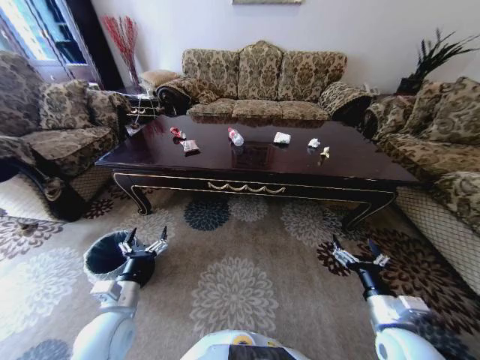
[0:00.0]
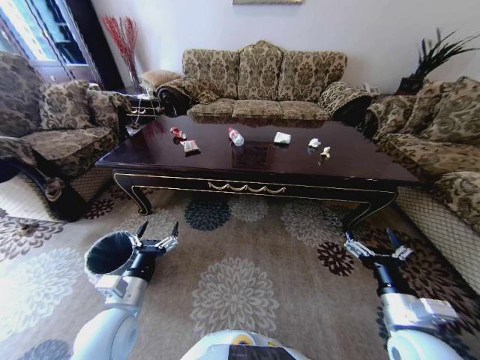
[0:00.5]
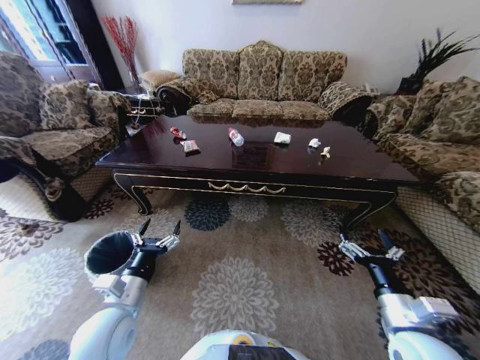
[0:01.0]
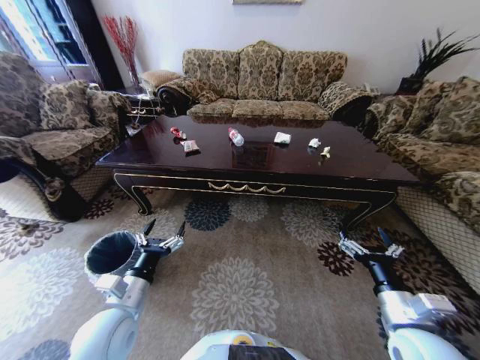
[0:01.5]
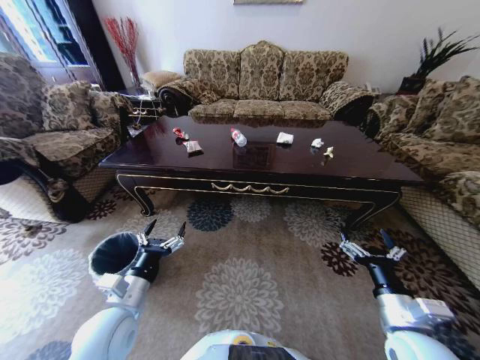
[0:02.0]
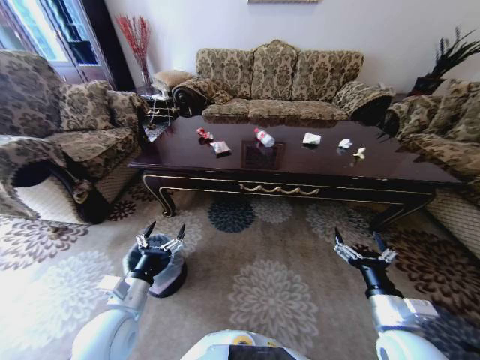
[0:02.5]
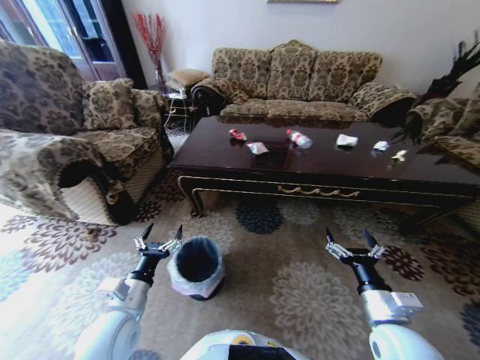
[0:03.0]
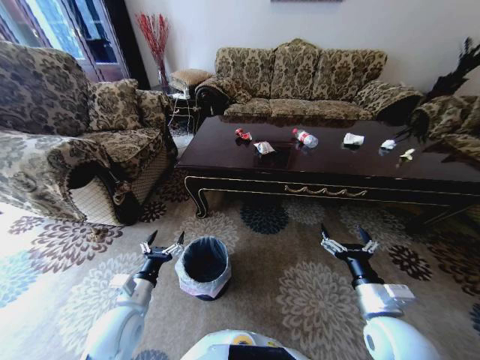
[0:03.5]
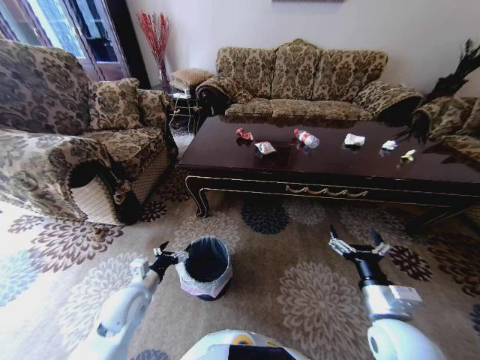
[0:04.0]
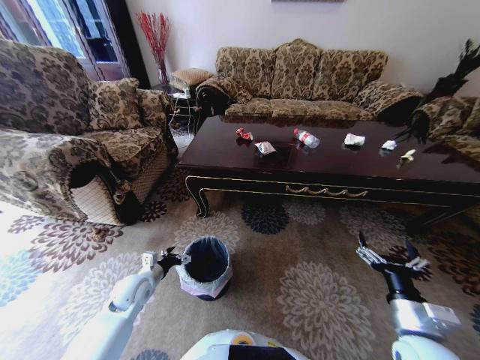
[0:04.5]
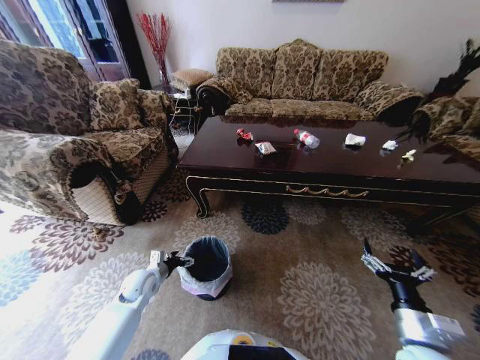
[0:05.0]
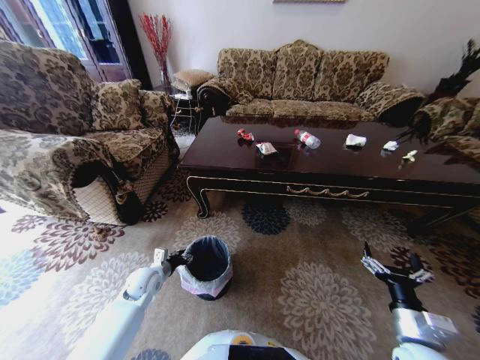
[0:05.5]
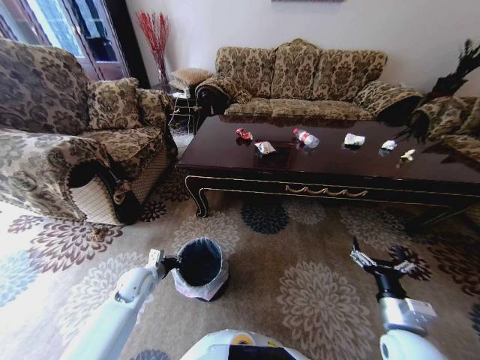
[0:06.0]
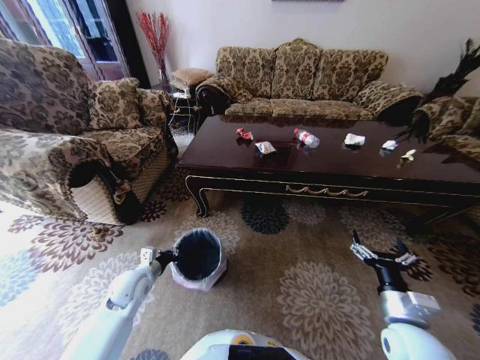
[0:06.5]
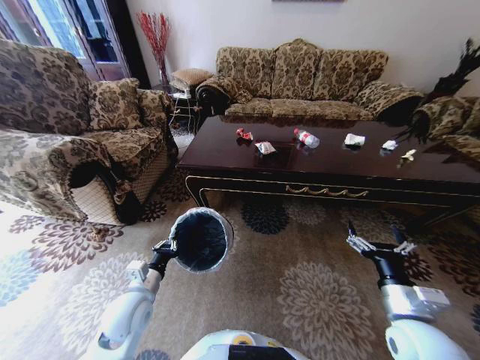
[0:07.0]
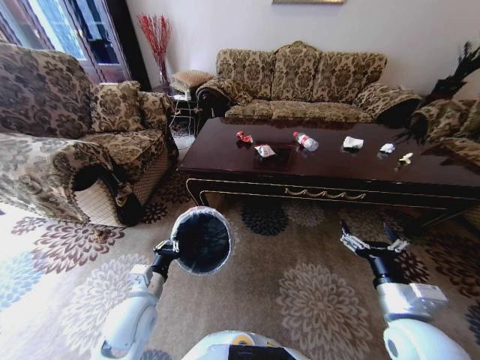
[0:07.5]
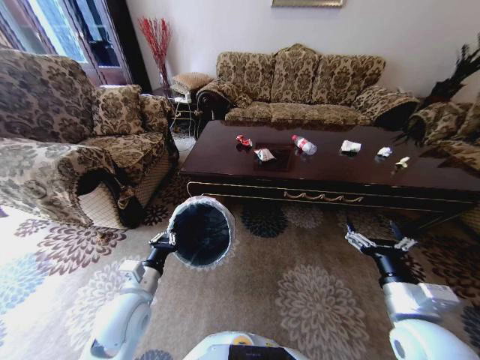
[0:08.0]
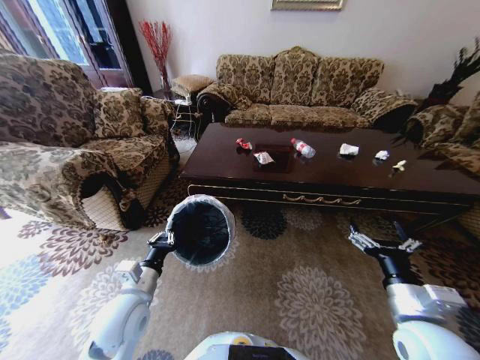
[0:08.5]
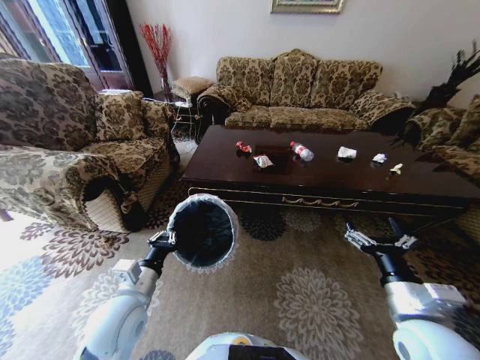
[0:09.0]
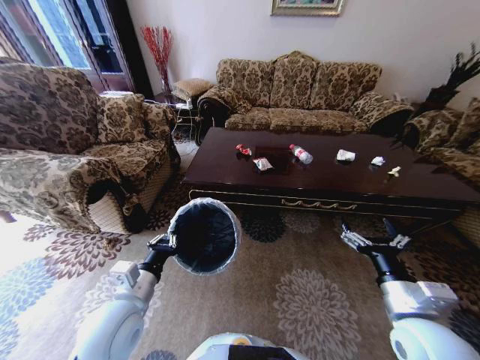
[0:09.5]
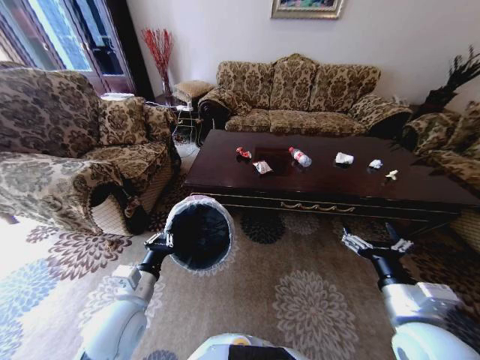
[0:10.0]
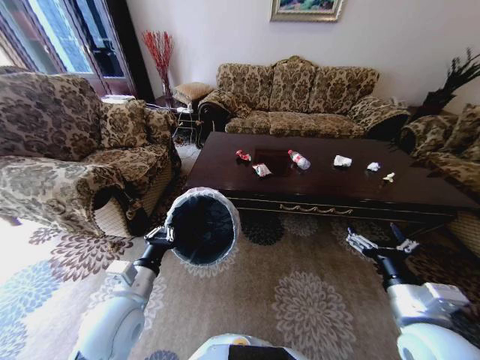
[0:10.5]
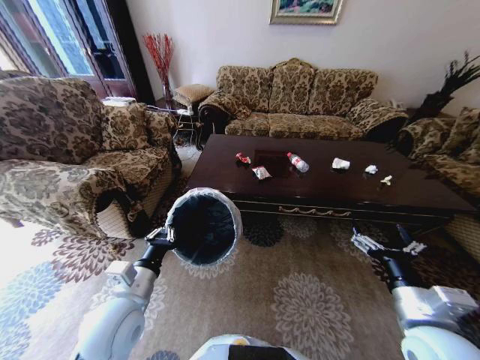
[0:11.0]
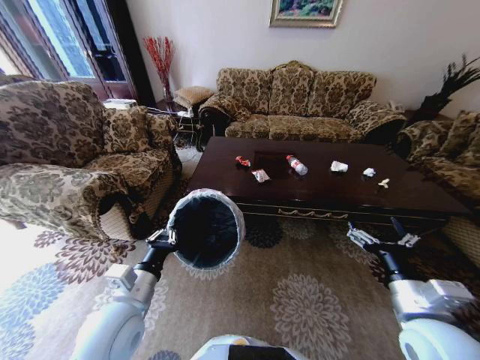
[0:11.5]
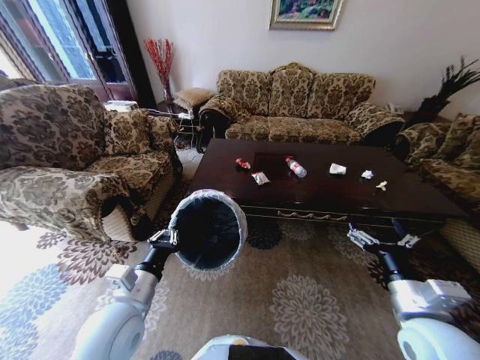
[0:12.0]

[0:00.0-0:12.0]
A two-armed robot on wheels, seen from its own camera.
Task of the whole recording: Move to the front of the table and place the trash on the table into the trash bin.
0:02.0 to 0:04.0: The left gripper moves downward and forward, some 10 cm.
0:04.0 to 0:06.0: The right gripper changes place by approximately 5 cm. Meanwhile the left gripper goes about 5 cm forward, and closes its fingers.
0:06.0 to 0:08.0: The left gripper goes approximately 15 cm upward, backward and to the right; the right gripper goes about 10 cm upward.

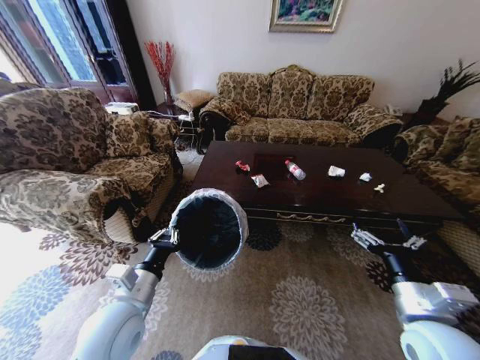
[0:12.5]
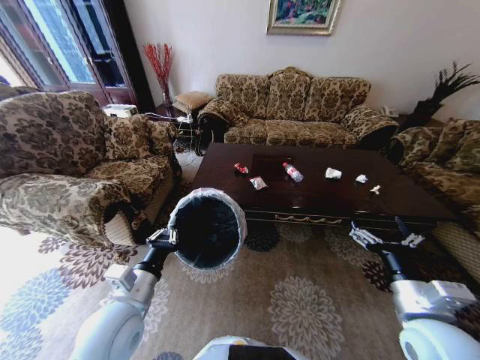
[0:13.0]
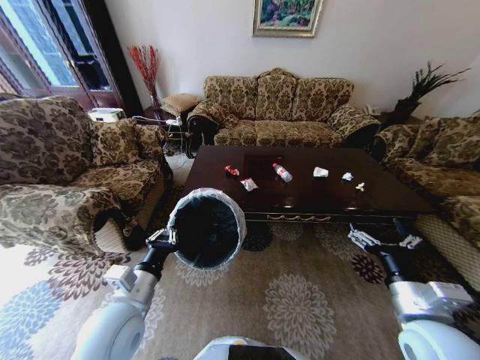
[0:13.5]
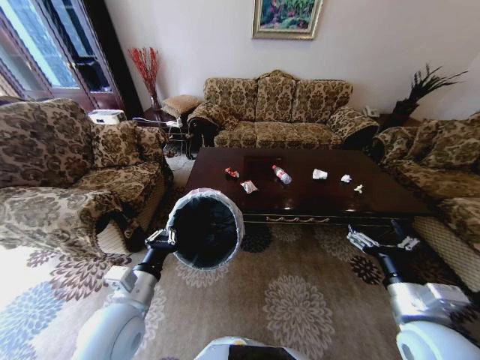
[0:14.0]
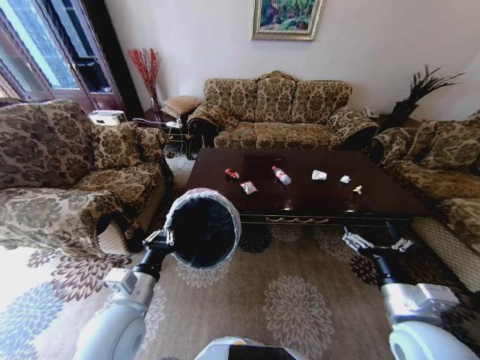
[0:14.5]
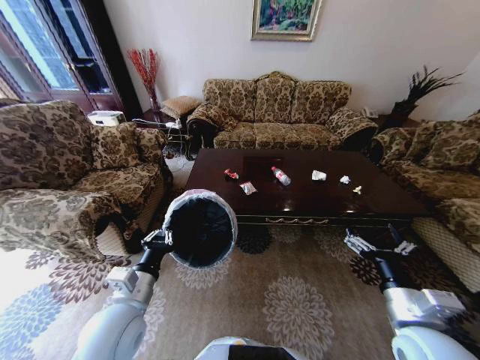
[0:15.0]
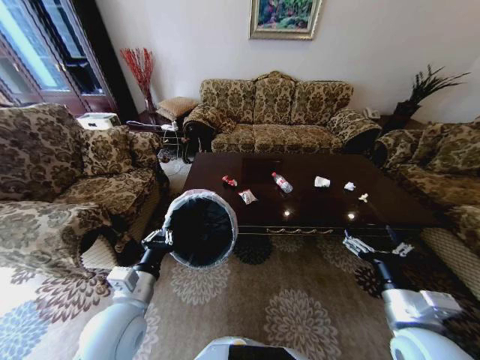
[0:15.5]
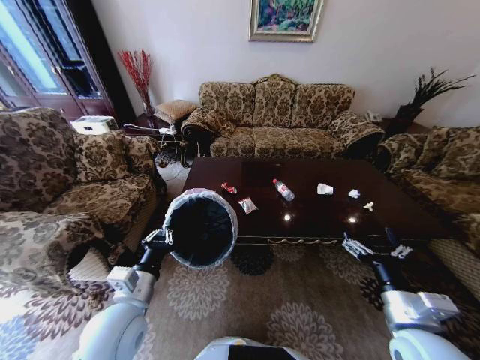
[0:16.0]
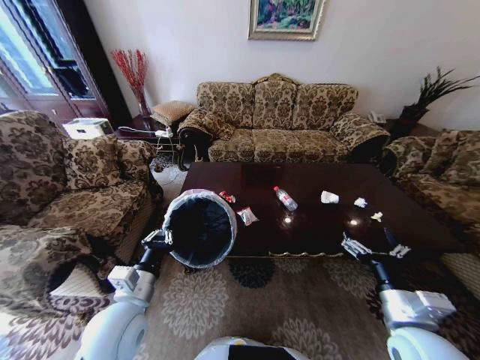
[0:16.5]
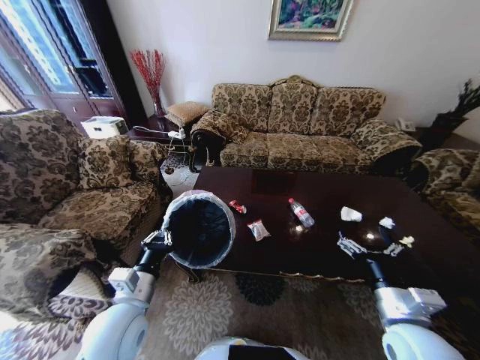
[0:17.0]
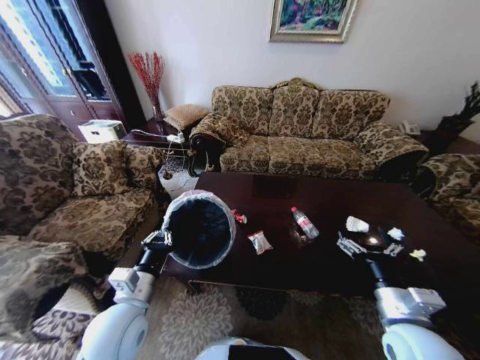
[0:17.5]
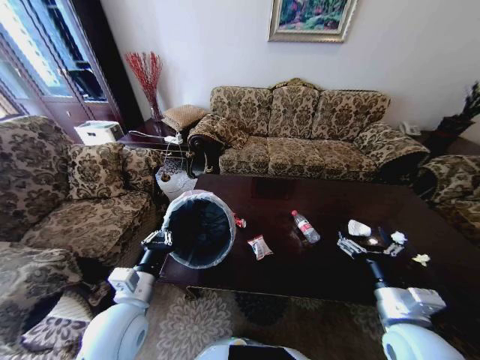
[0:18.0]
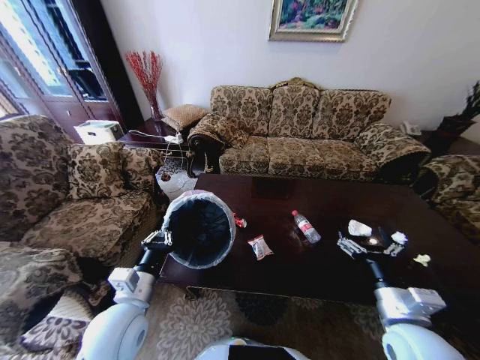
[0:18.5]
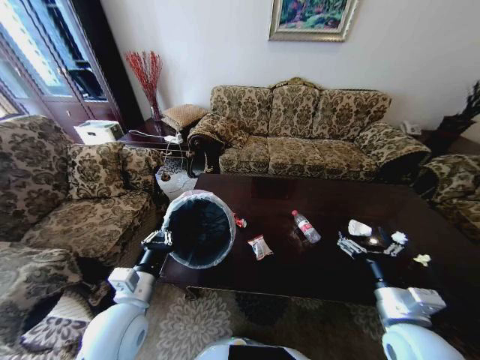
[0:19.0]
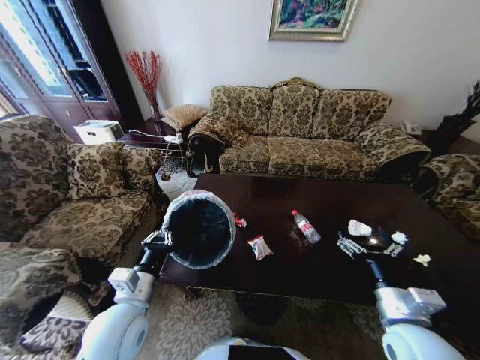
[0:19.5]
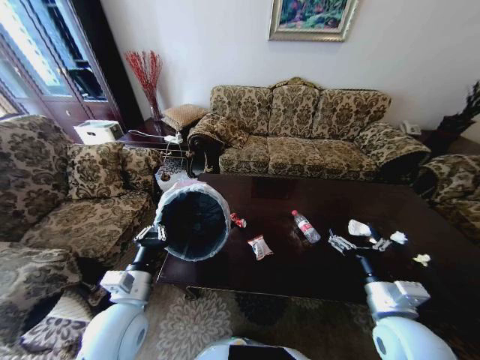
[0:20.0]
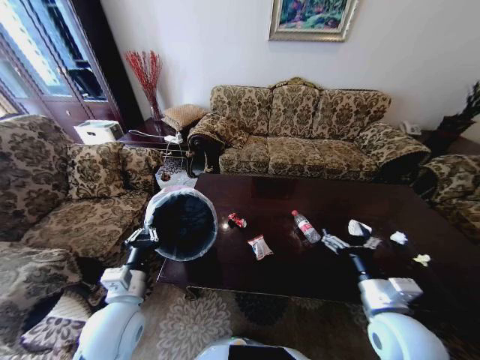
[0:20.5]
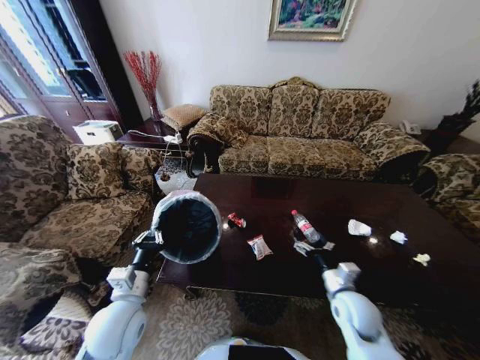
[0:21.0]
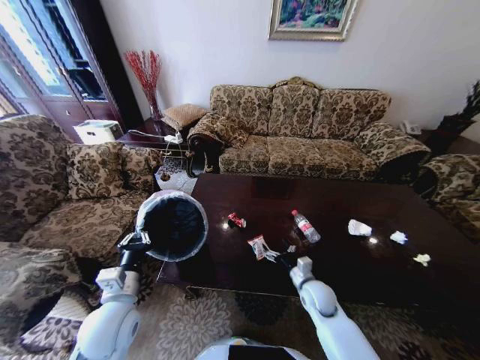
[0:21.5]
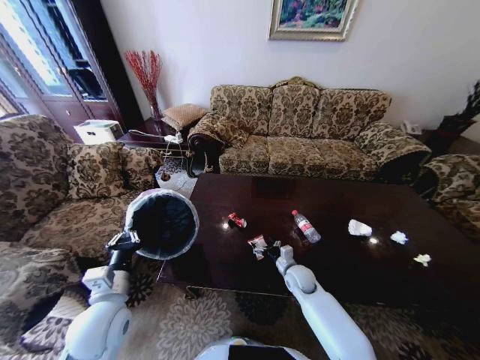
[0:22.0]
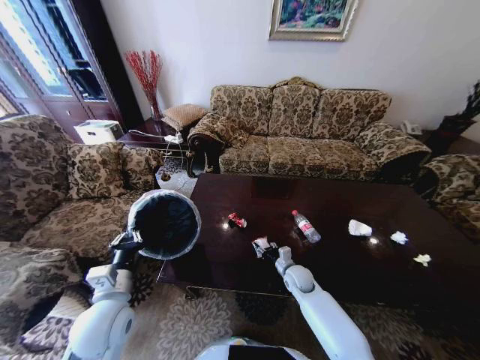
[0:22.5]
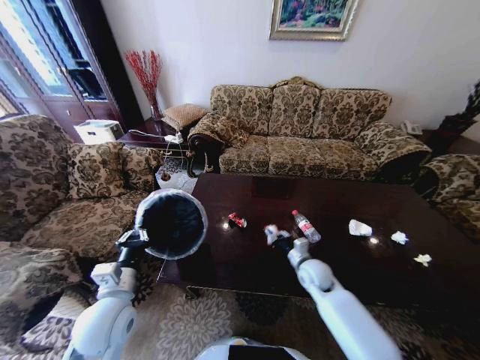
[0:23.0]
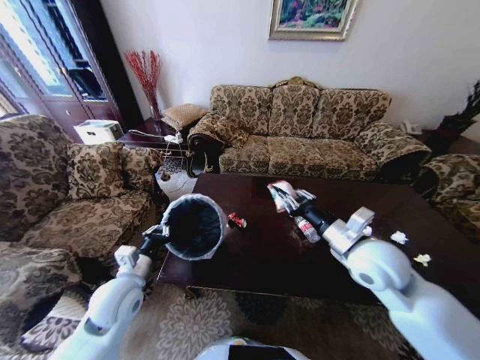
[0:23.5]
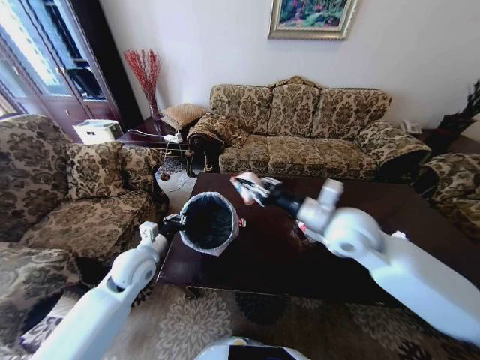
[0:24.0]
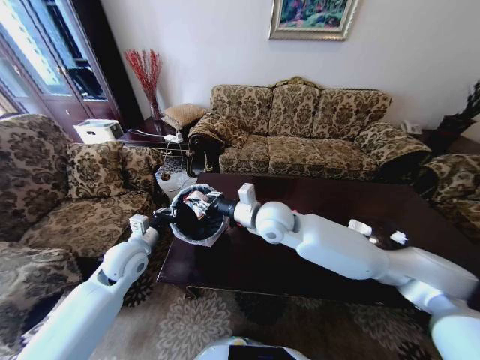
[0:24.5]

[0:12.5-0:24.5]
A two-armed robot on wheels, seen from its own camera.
Task of the whole recording: Move to the front of the table and place the trash on the table into the trash bin.
0:18.5 to 0:20.5: There are only small adjustments of the grippers.
0:20.5 to 0:22.5: The right gripper travels downward, forward and to the left by roughly 30 cm, and closes up.
0:22.5 to 0:24.5: The left gripper moves forward, approximately 15 cm, while the right gripper goes about 35 cm upward and to the left, and closes its fingers.

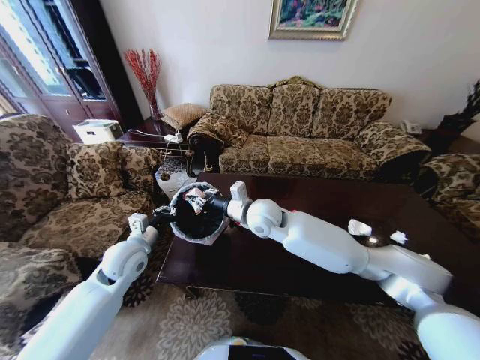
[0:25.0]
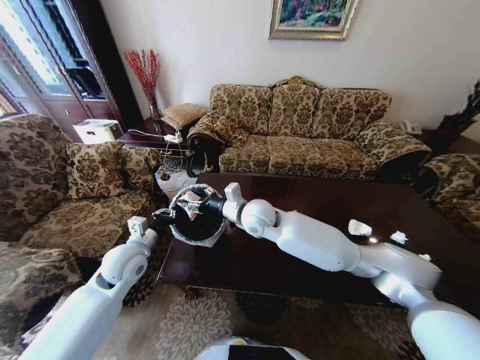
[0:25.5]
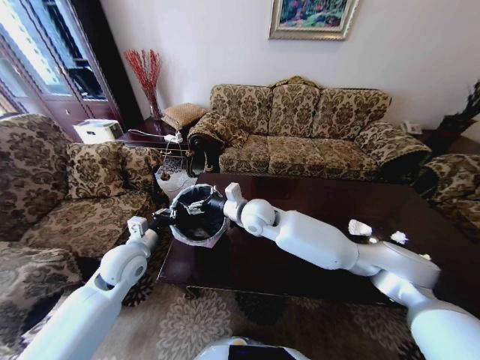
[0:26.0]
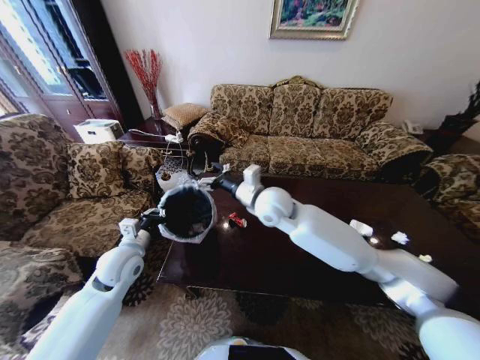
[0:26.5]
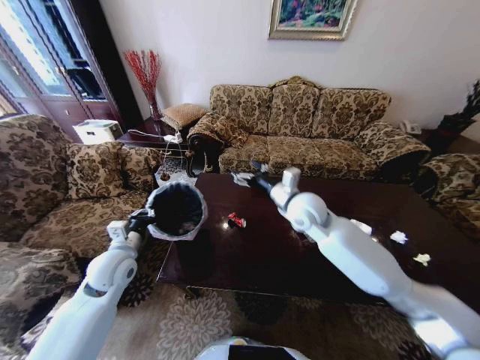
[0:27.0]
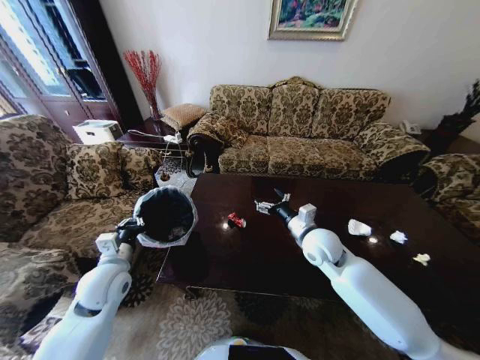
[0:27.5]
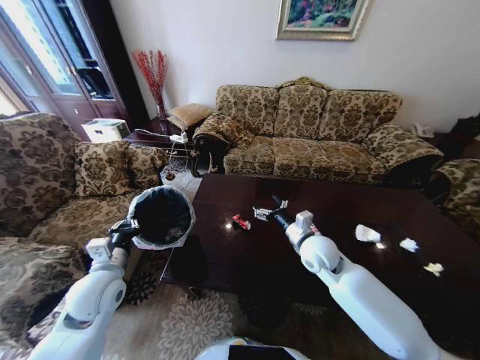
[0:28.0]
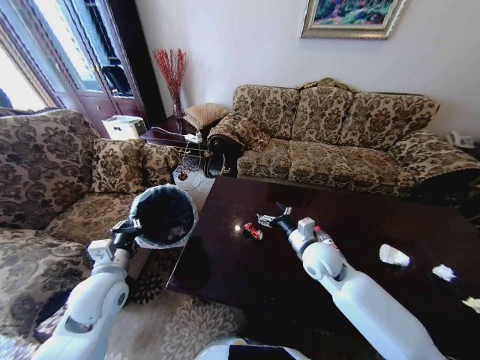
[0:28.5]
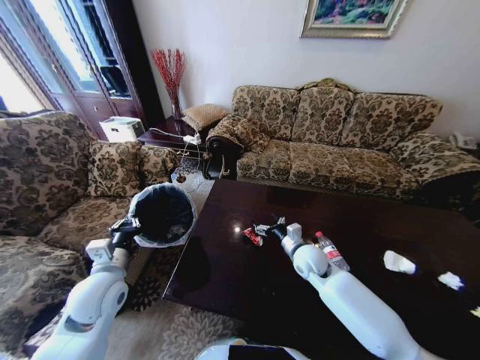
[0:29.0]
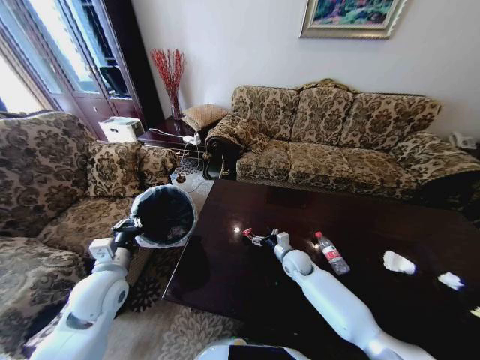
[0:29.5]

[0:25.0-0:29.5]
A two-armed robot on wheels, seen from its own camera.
Task of the whole recording: Move to the front of the table and place the trash on the table into the trash bin.
0:25.0 to 0:27.0: The right gripper travels to the right by some 10 cm, and opens up.
0:27.0 to 0:29.5: The right gripper heads downward, covering approximately 30 cm. The left gripper moves backward, approximately 5 cm.
